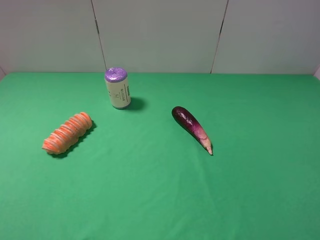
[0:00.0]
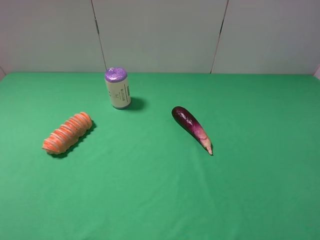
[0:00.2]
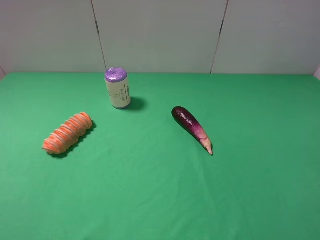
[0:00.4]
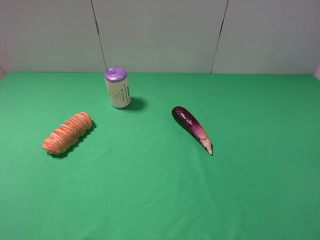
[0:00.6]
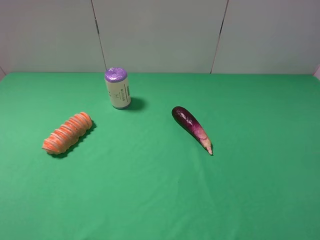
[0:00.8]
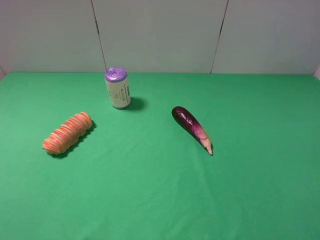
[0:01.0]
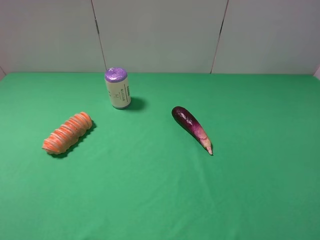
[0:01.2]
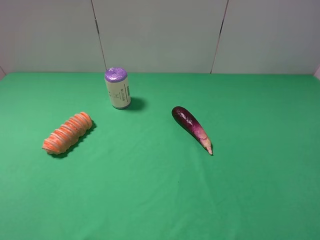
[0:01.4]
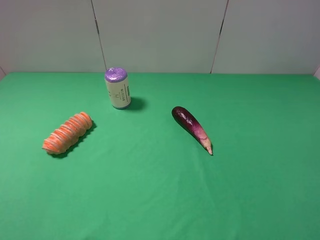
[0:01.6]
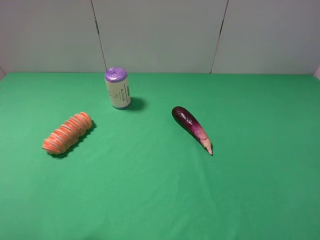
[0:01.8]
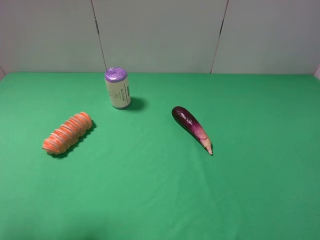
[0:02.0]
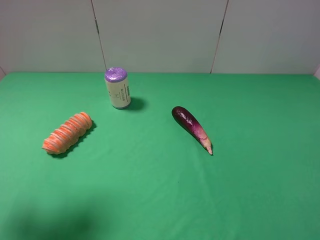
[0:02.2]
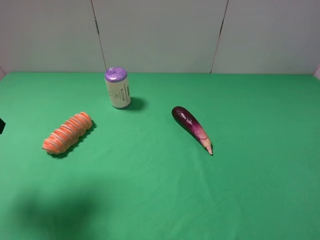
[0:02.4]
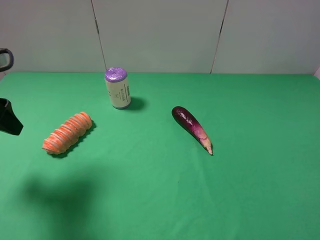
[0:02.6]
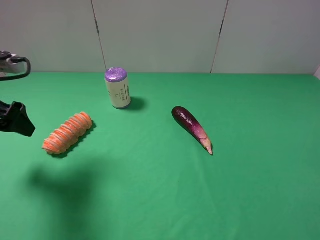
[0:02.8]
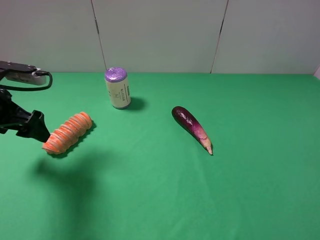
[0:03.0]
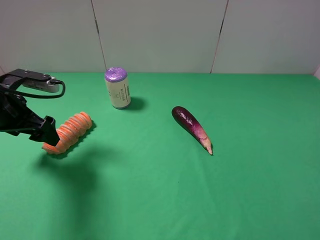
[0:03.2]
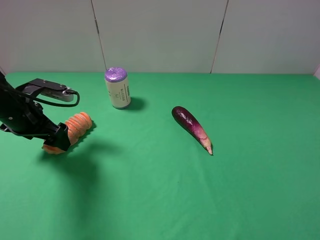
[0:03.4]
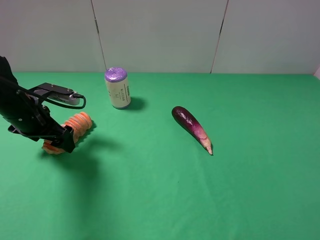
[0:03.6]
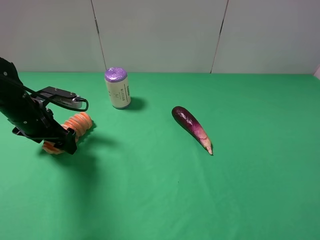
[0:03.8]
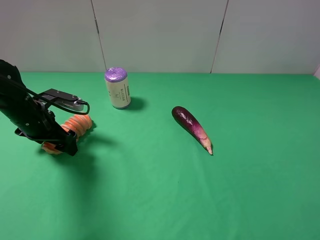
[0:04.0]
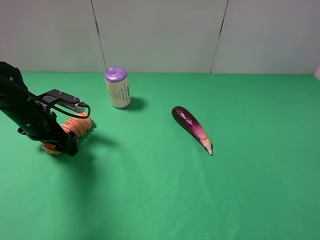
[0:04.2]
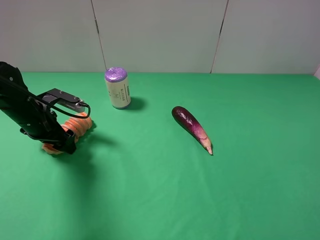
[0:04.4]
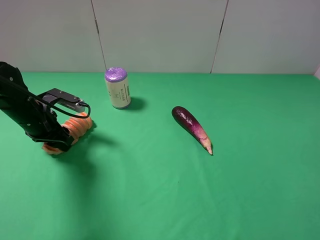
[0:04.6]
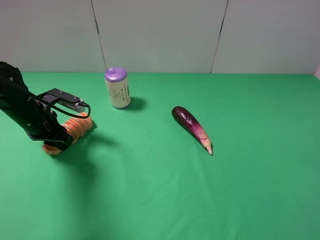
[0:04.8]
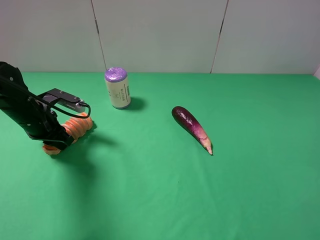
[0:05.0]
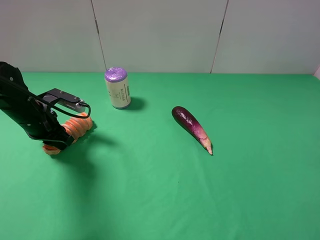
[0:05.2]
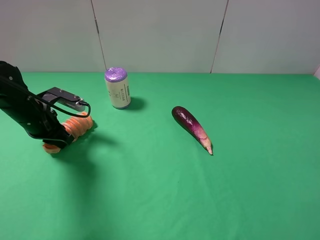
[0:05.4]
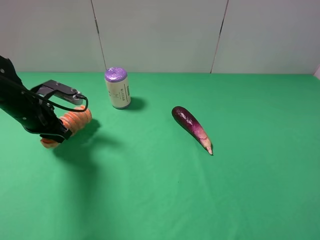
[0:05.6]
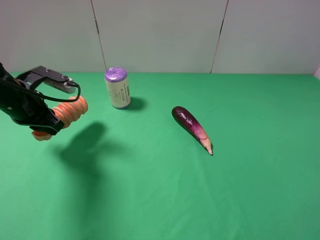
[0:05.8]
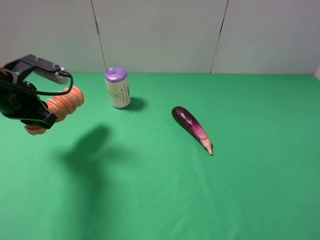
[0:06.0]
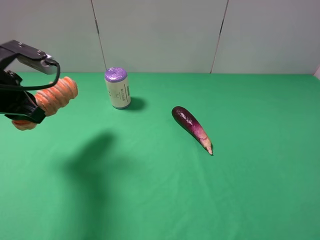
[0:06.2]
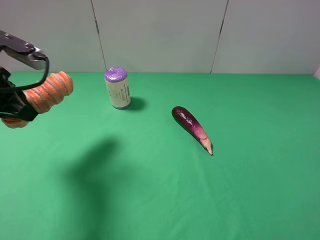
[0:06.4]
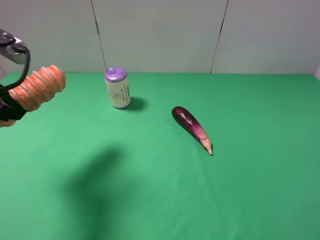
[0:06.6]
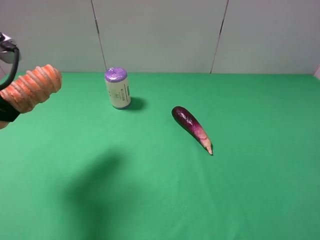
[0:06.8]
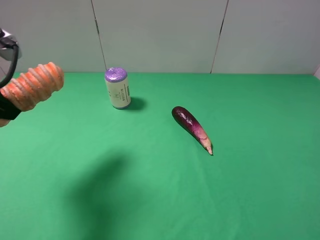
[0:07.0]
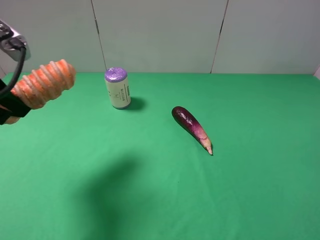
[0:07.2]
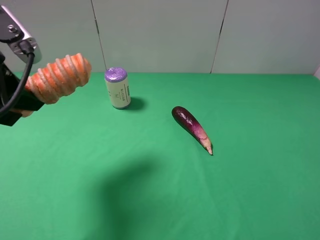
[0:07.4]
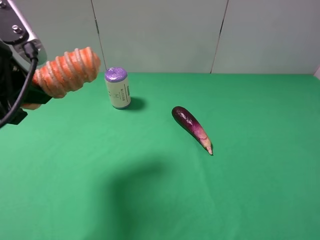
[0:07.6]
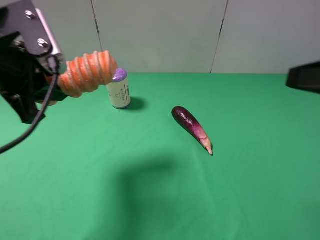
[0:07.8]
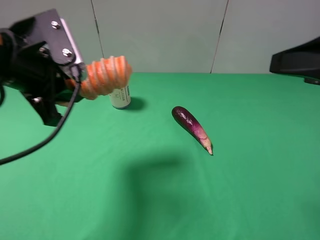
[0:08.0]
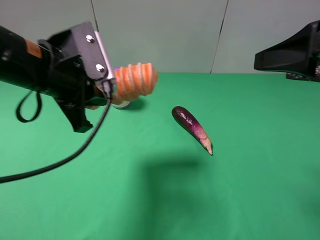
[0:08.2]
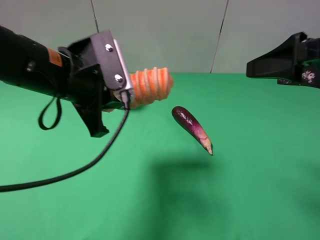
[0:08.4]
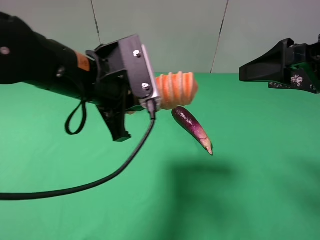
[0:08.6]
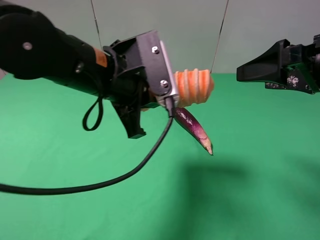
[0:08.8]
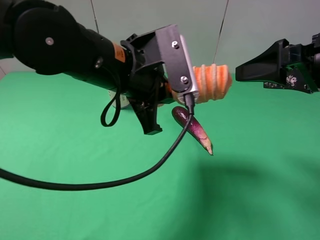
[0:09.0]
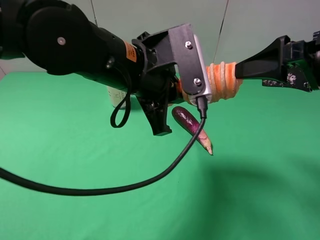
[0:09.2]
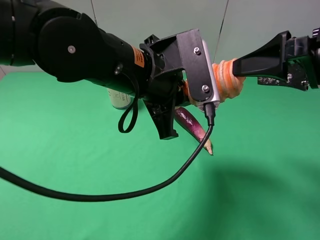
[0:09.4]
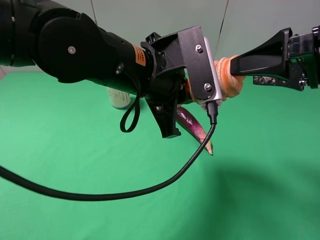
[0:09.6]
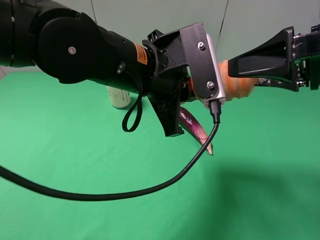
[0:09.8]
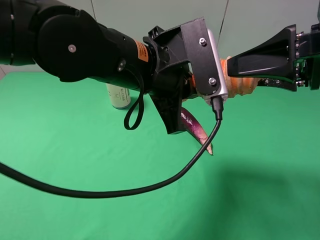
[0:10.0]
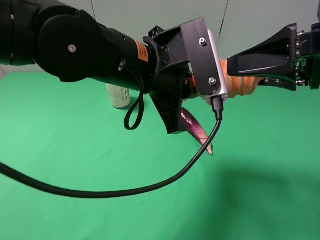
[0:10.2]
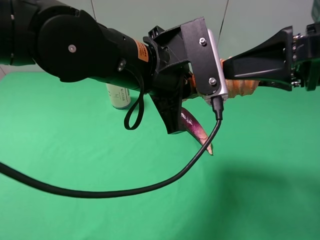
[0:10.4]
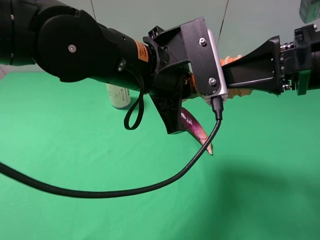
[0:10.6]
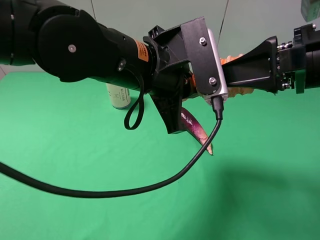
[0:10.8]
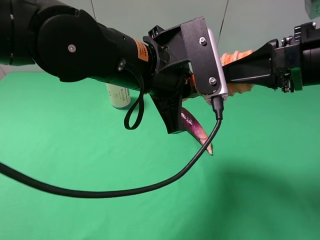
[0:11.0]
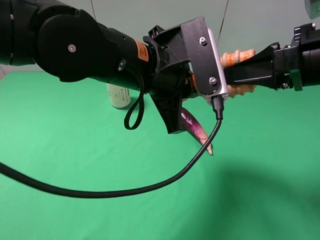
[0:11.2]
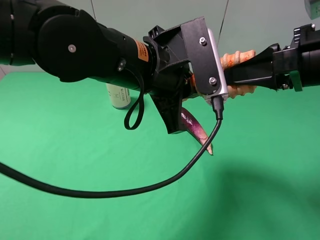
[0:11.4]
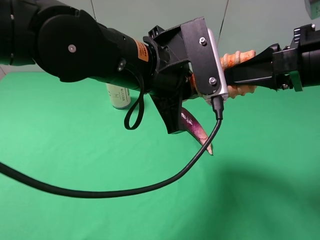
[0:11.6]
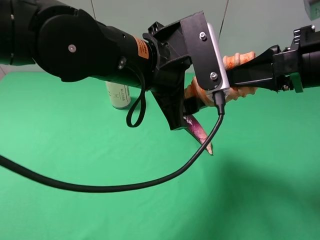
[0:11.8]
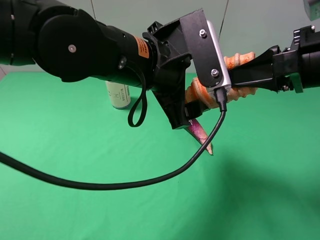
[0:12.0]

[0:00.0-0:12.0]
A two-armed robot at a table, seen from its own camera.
Task of the whole recording: use the left gripper to pick up the item and transfer it from the left gripper to the right gripper.
Step, 0:00.0 to 0:05.0: Use the left gripper to grab the long bread on the left side of the table.
0:01.6 to 0:03.0: The left gripper is displaced forward and downward by some 25 cm.
0:03.0 to 0:04.4: The left gripper goes some 10 cm downward.
0:04.4 to 0:06.0: The left gripper goes some 10 cm upward, and closes its fingers.
0:06.0 to 0:07.6: The left gripper moves upward and backward, some 10 cm. The right gripper heads forward, covering roughly 5 cm.
0:07.6 to 0:09.0: The right gripper shifts roughly 15 cm forward. Meanwhile the left gripper travels to the right by about 20 cm.
0:10.4 to 0:12.0: The left gripper opens. The right gripper closes up.

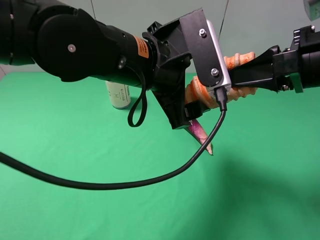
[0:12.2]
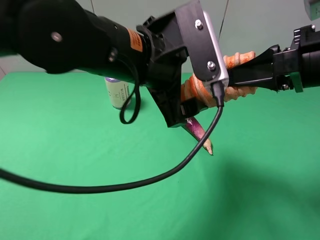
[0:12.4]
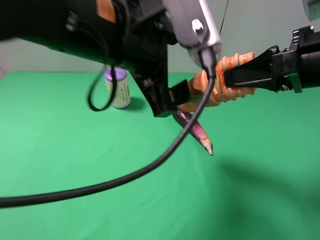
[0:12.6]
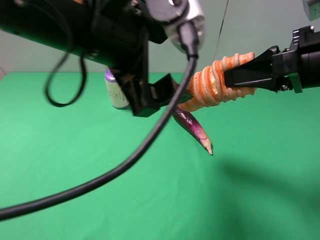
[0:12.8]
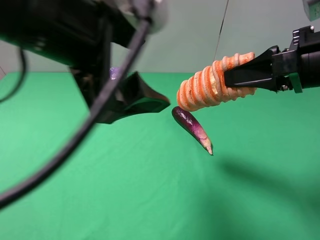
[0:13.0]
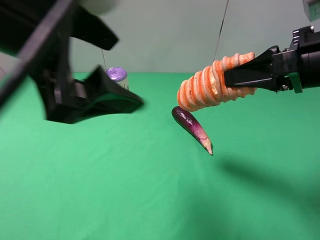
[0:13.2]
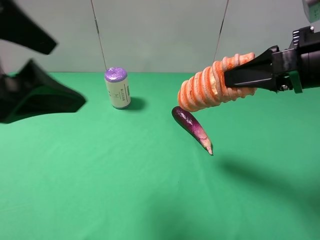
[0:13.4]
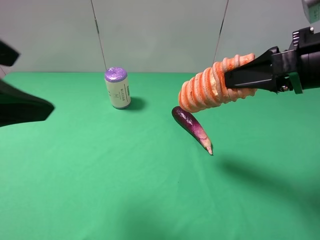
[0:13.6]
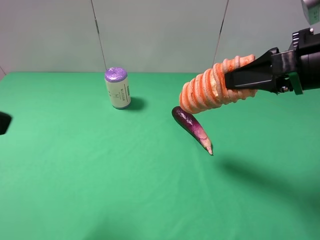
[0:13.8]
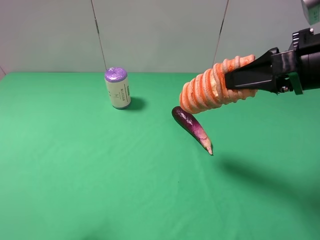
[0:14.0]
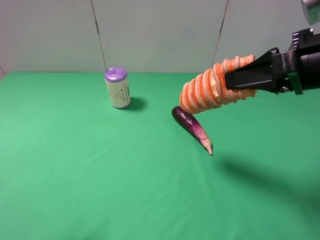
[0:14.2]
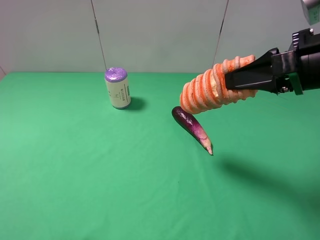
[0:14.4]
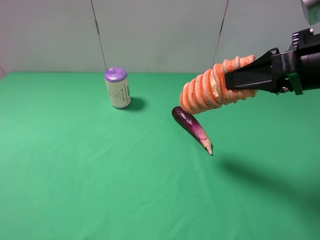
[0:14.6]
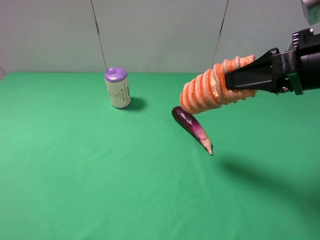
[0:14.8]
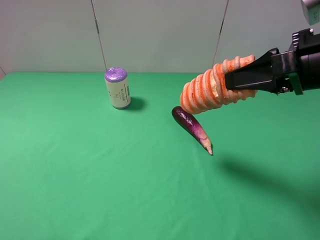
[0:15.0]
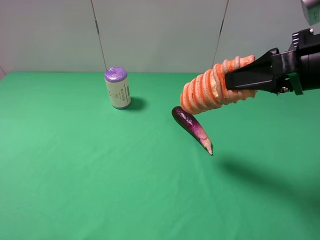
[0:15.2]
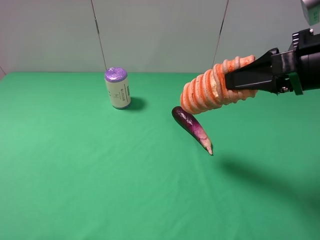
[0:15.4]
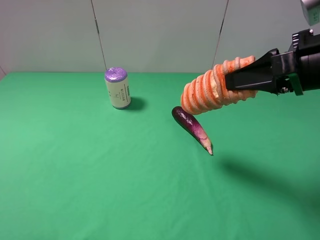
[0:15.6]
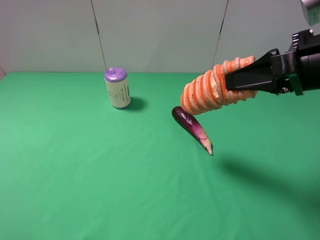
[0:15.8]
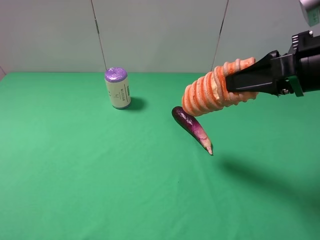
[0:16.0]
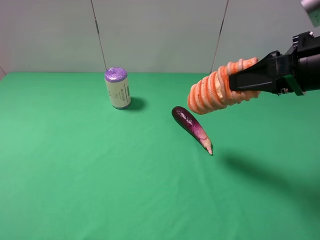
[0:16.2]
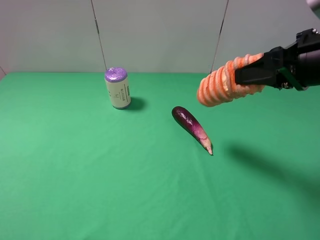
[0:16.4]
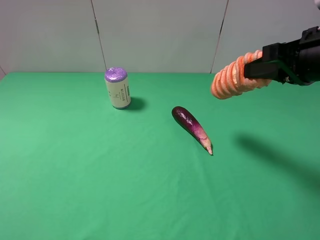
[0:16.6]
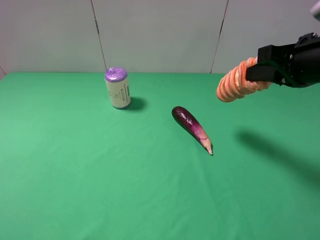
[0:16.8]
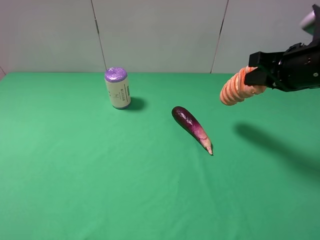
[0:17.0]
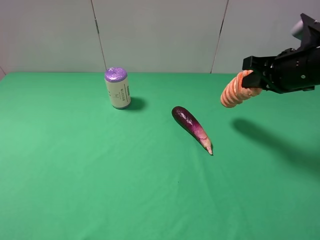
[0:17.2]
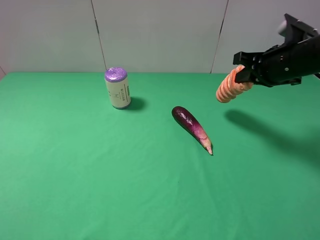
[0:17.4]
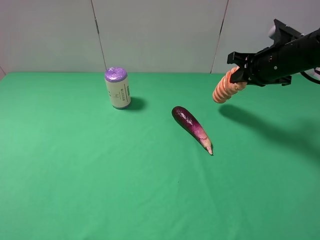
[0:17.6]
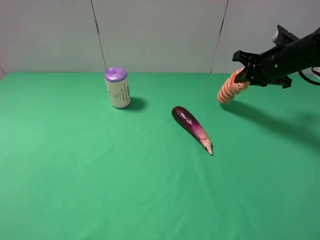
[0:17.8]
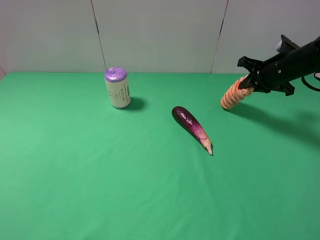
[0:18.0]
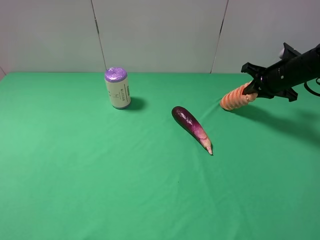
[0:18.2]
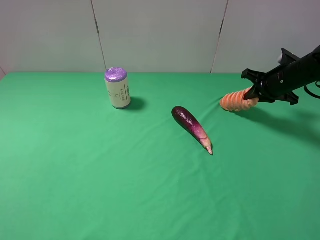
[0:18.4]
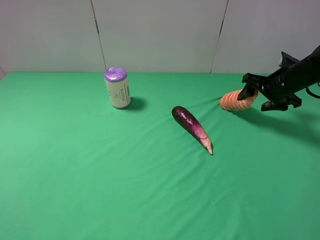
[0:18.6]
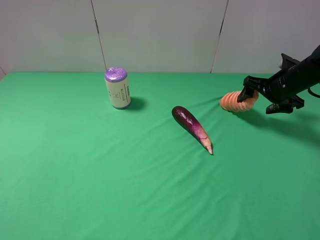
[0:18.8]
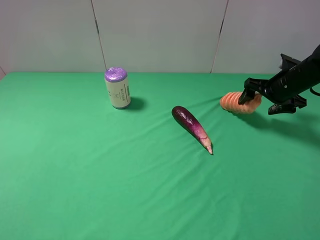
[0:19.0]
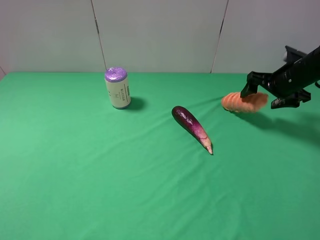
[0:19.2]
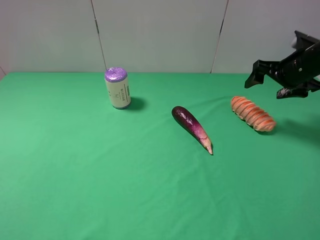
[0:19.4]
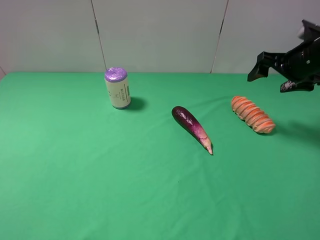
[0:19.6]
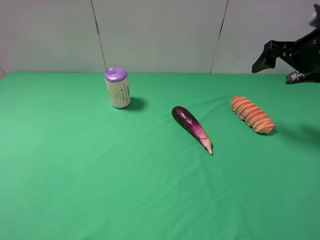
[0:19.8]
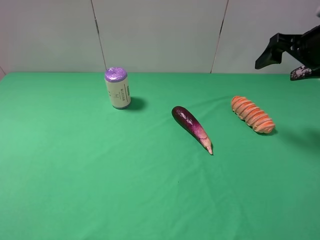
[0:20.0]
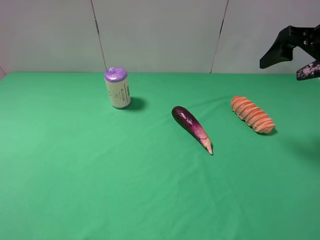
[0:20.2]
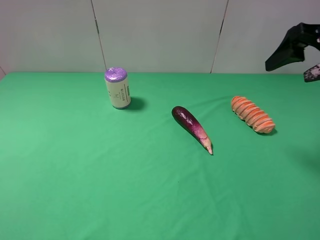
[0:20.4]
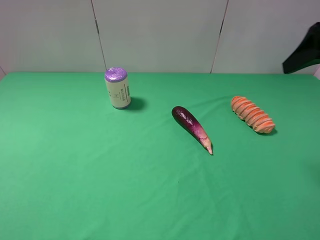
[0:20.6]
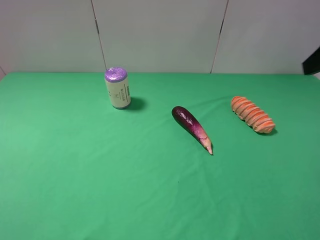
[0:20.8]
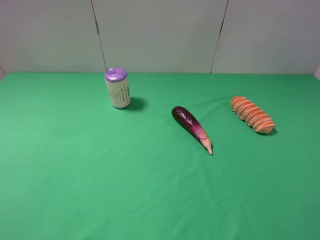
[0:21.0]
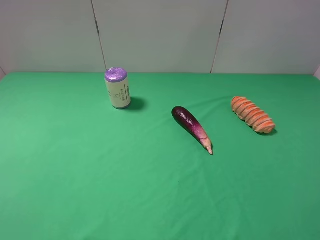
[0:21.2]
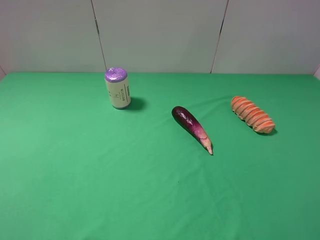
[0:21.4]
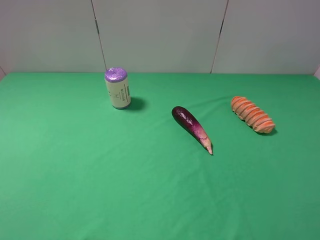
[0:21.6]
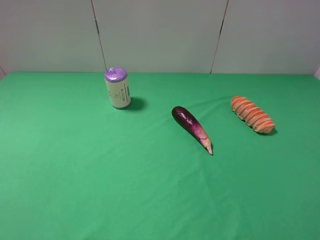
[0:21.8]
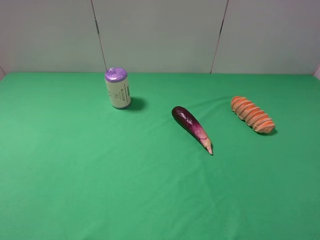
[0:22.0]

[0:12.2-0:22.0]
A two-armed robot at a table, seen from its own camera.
Task of the whole recording: use the left gripper to pick up the item and transfer it from the left gripper to the right gripper.
Step, 0:12.4 to 0:19.2: The right gripper places long bread on the right side of the table.
0:12.2 to 0:13.6: The left gripper travels to the left, backward and upward by some 25 cm.
0:13.6 to 0:15.0: The left gripper heads to the left, downward and backward, covering approximately 15 cm.
0:16.4 to 0:17.8: The right gripper travels forward and downward by about 20 cm.
0:17.8 to 0:19.2: The right gripper opens.
0:19.2 to 0:20.6: The right gripper shifts roughly 20 cm upward and backward.
0:20.6 to 0:22.0: The right gripper is displaced backward by approximately 20 cm.
